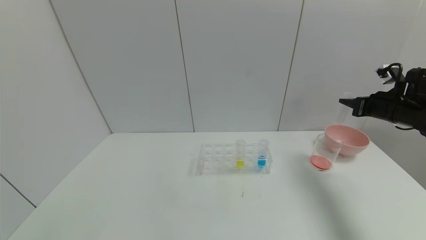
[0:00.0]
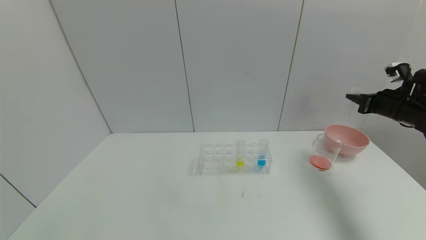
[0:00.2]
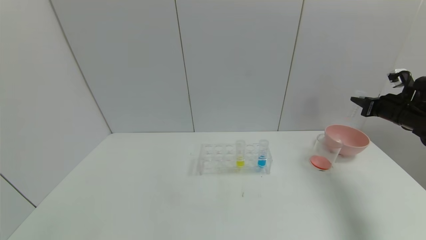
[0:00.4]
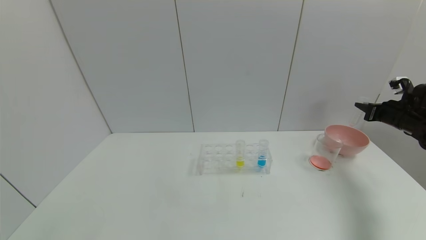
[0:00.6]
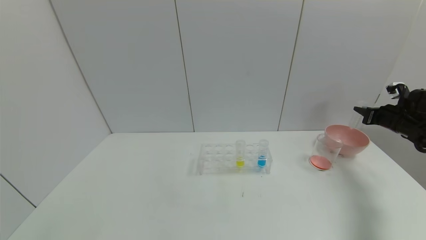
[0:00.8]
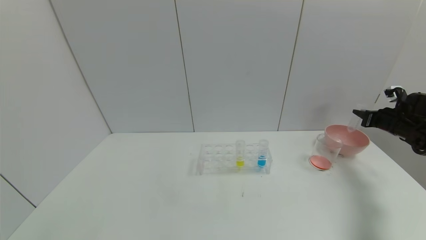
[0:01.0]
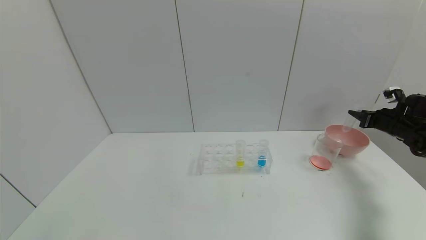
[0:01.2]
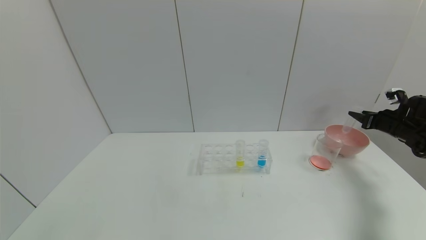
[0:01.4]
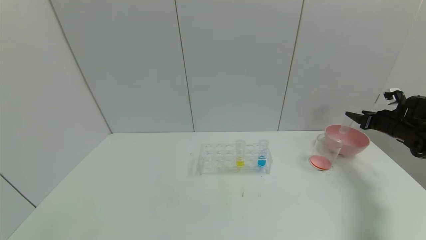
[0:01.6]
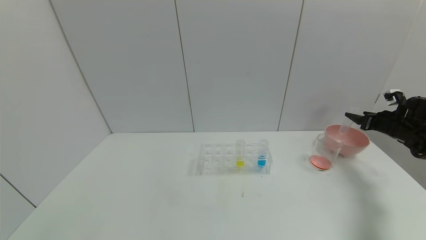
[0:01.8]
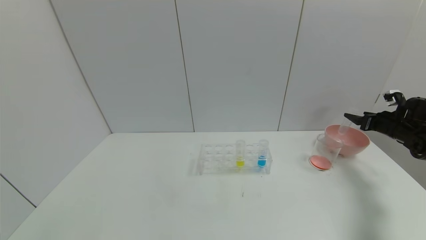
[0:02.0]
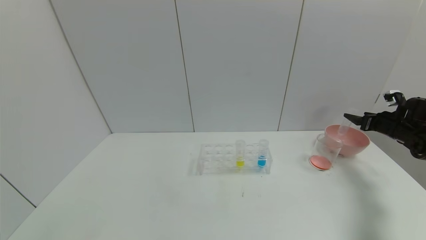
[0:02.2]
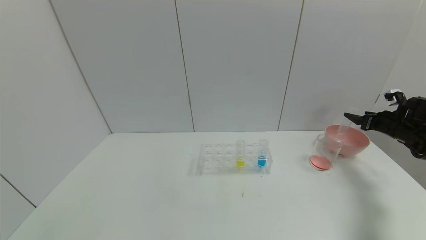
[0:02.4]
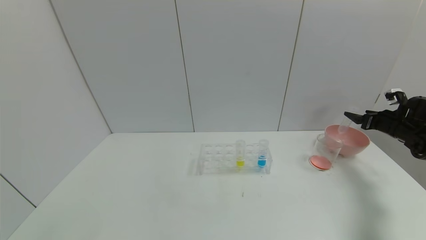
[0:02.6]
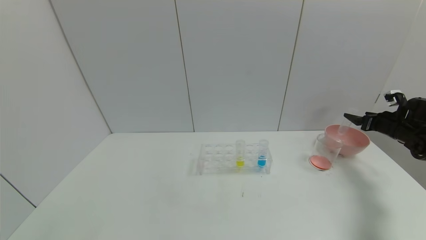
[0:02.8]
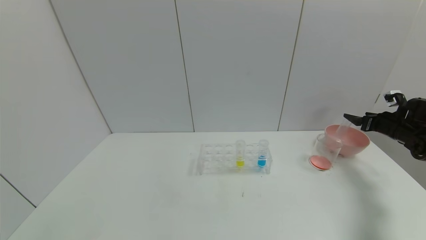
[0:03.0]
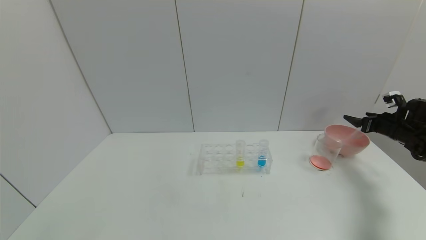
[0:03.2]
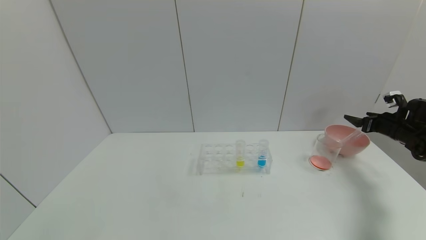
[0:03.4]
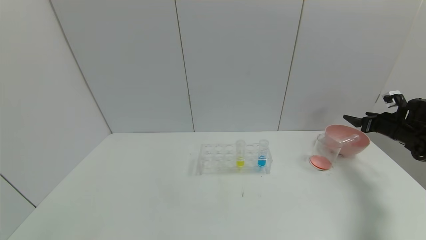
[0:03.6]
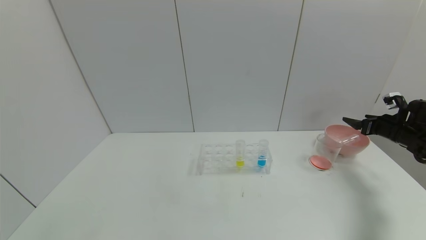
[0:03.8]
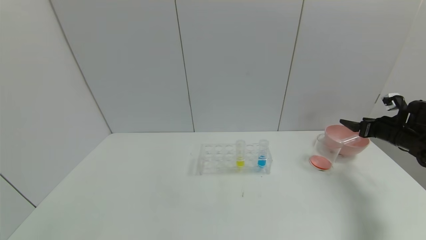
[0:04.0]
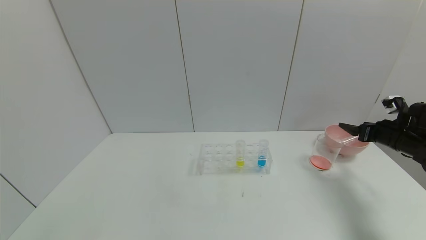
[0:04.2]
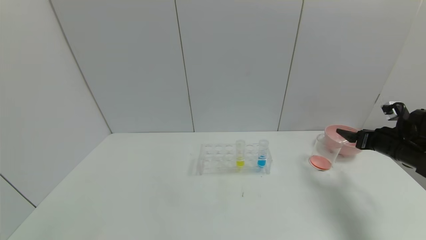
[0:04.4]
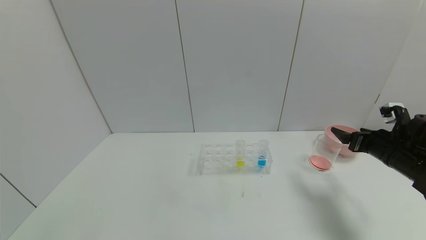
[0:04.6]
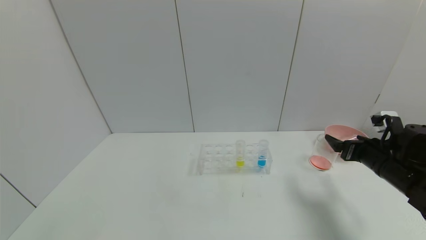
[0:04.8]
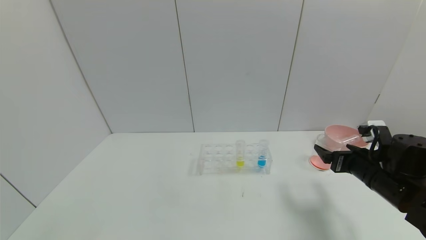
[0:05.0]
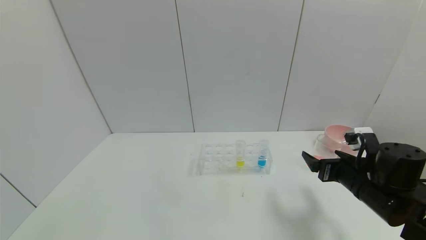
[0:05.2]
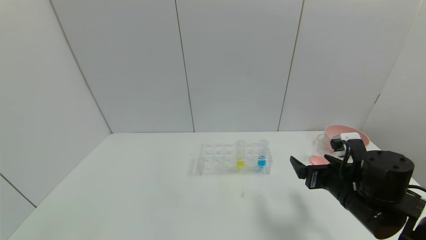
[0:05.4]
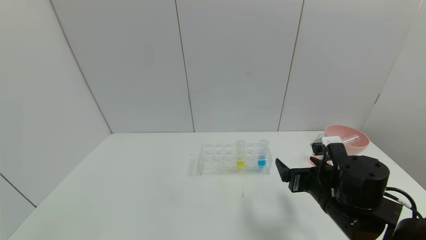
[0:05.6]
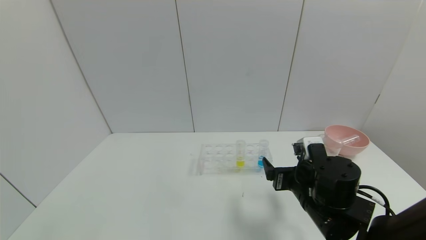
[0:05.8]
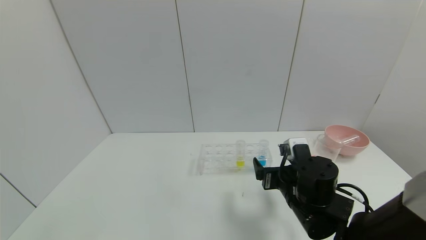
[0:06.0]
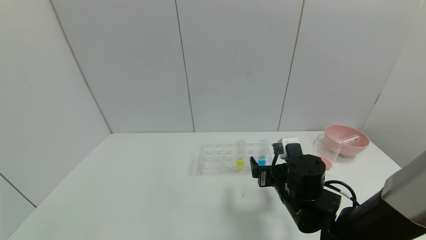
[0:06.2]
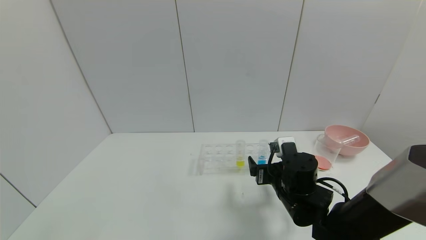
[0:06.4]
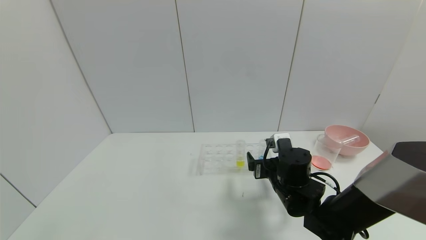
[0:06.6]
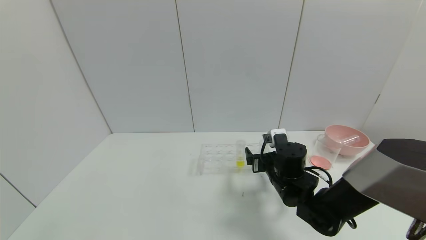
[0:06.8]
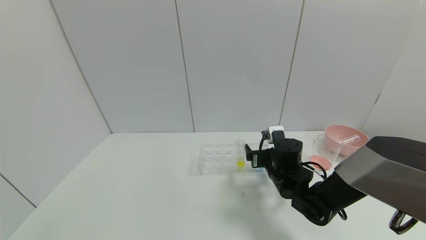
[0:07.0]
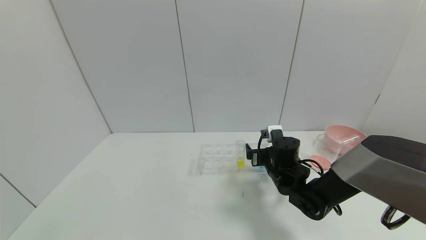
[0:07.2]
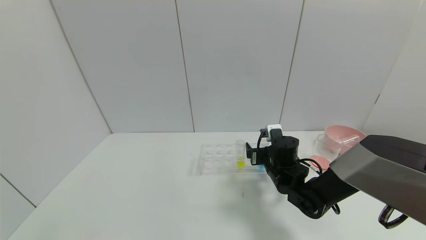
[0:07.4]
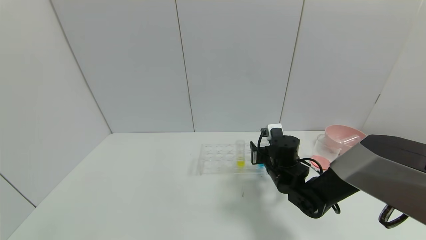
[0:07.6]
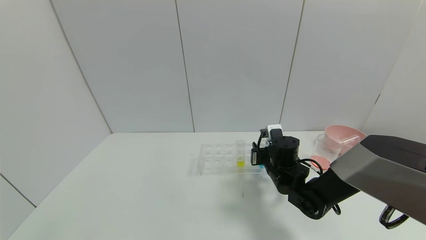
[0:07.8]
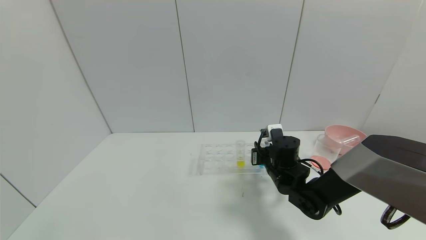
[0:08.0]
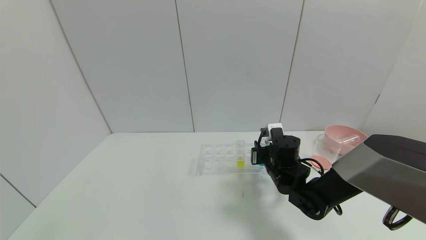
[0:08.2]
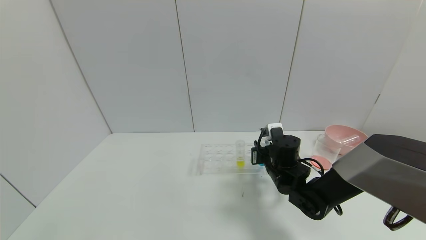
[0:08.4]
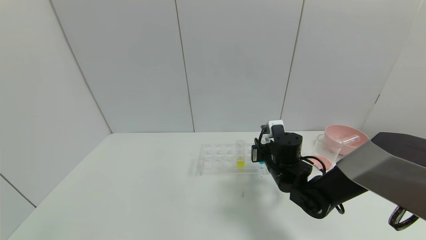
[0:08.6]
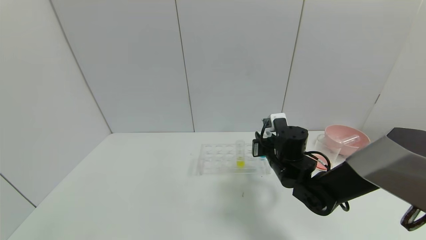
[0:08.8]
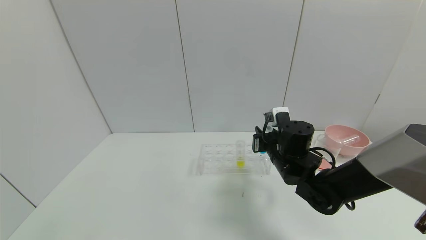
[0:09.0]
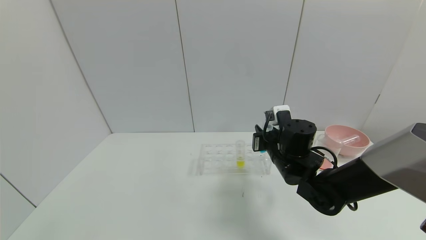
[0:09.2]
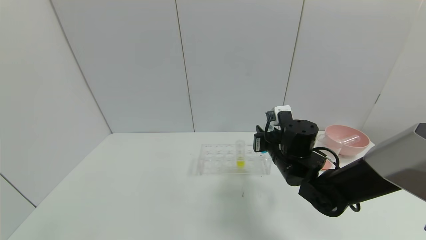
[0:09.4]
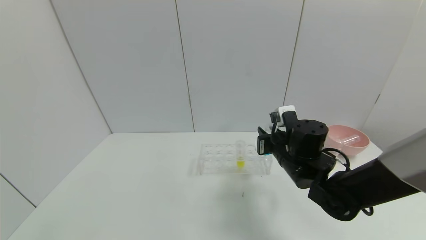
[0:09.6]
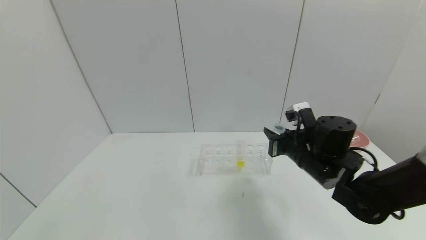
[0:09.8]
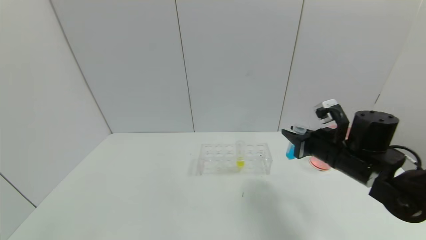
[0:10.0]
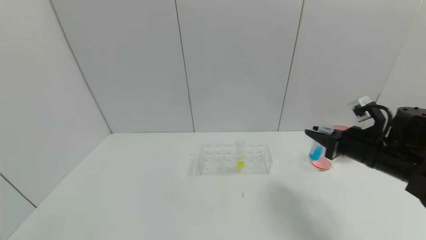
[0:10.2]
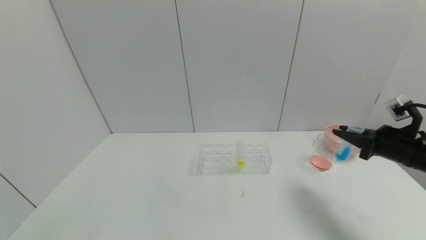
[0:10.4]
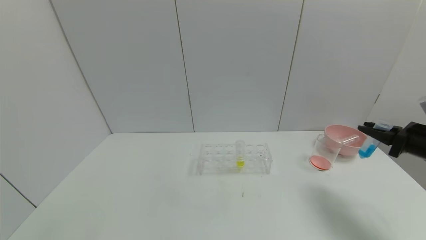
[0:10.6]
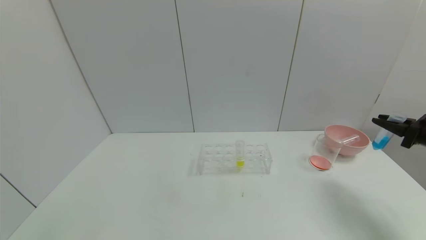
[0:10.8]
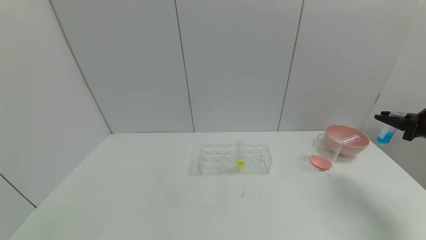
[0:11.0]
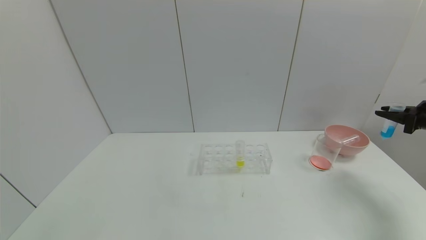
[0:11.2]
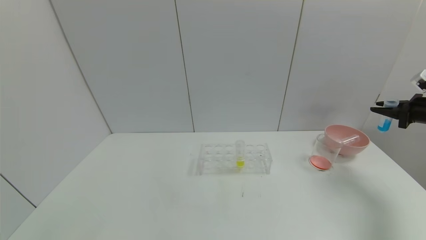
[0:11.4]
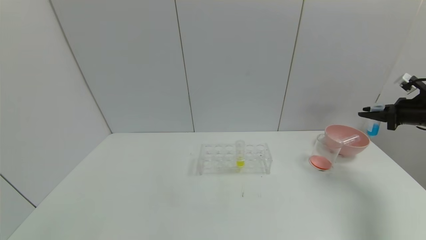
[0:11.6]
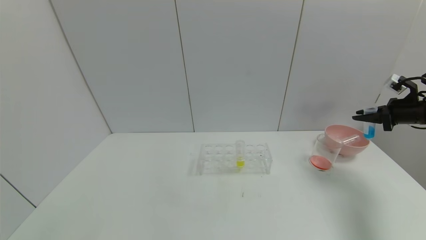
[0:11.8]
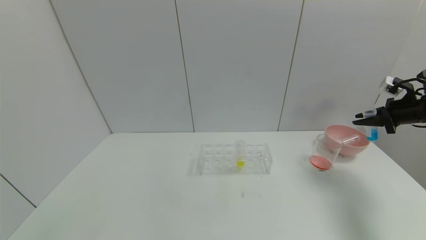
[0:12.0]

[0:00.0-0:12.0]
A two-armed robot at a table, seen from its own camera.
Task of the whole recording: pick up the test tube with red pigment and the test tube with blue pigment by grippers and pour them into the container.
Step, 0:00.0 to 0:03.8: Place the test tube into the bowl with the right gripper.
Step, 0:04.0 to 0:08.2: Grasp the blue reagent with the right gripper.
0:00.0 to 0:01.6: The right gripper goes some 10 cm to the right and downward, and opens.
0:01.6 to 0:03.0: Both grippers stay put.
0:03.0 to 0:04.4: The right gripper shifts some 15 cm to the left and backward.
0:04.4 to 0:06.0: The right gripper is displaced to the left by about 25 cm.
0:06.0 to 0:07.6: The right gripper goes approximately 10 cm forward, and closes its fingers.
0:07.6 to 0:09.0: The right gripper moves upward, roughly 5 cm, and closes its fingers.
0:09.0 to 0:10.4: The right gripper moves to the right, approximately 25 cm.
0:10.4 to 0:12.0: The right gripper is displaced to the right and forward by roughly 15 cm.

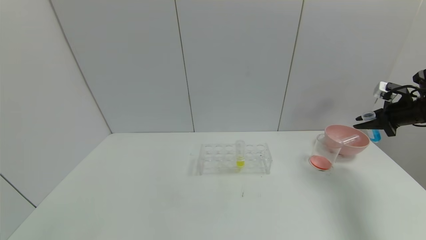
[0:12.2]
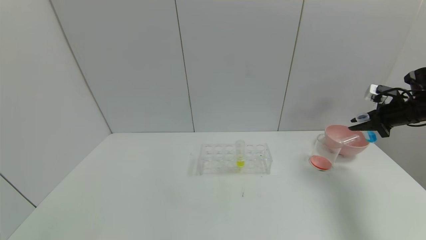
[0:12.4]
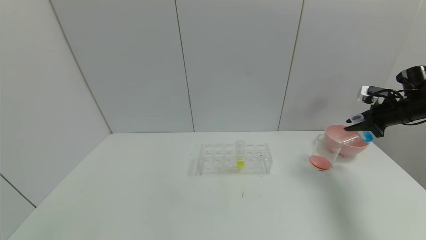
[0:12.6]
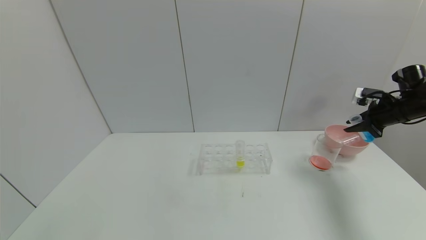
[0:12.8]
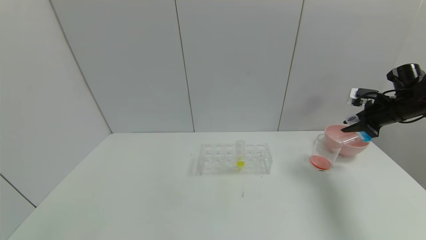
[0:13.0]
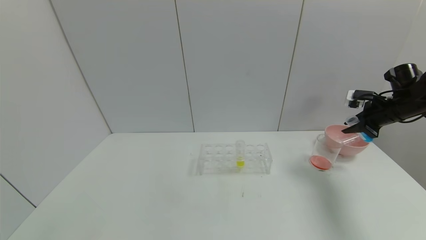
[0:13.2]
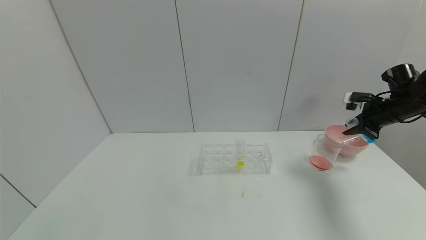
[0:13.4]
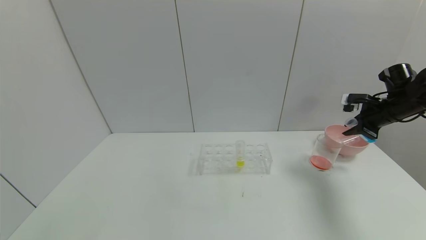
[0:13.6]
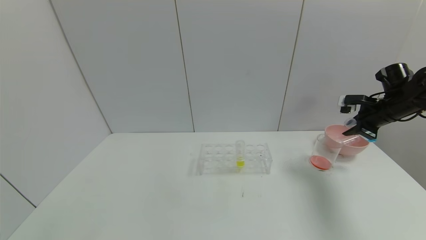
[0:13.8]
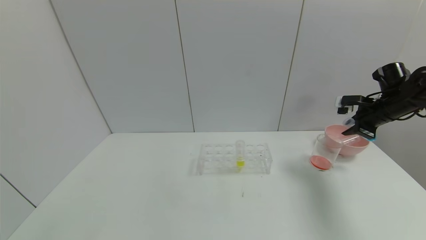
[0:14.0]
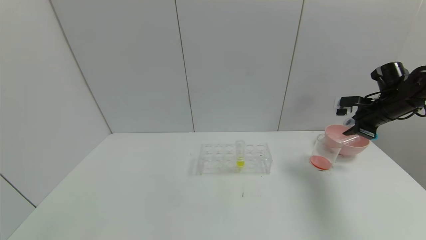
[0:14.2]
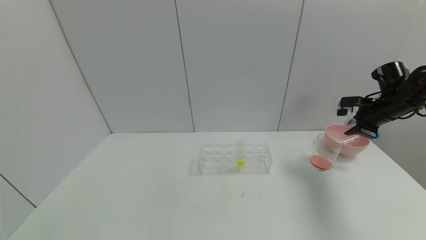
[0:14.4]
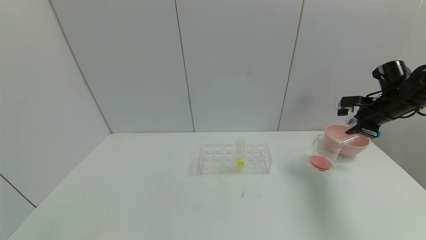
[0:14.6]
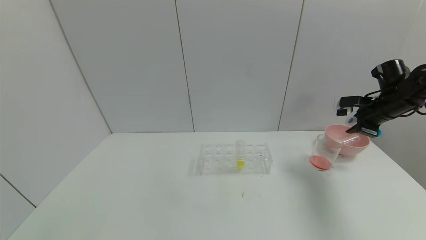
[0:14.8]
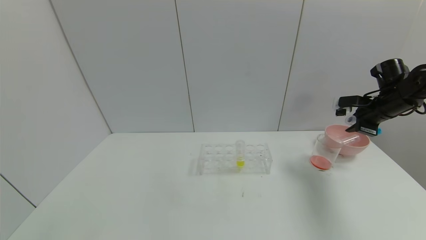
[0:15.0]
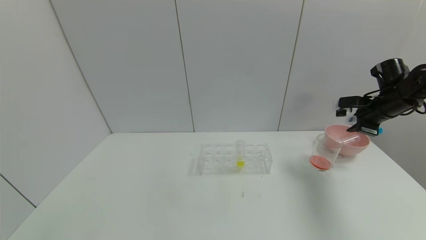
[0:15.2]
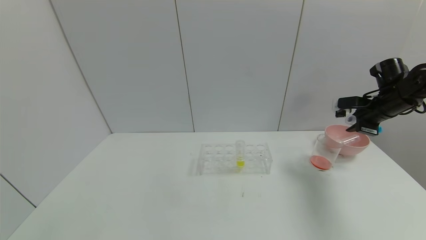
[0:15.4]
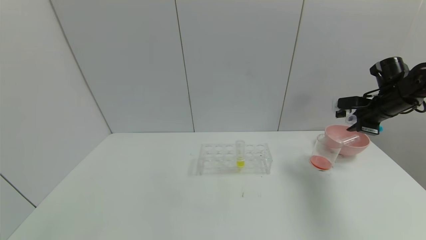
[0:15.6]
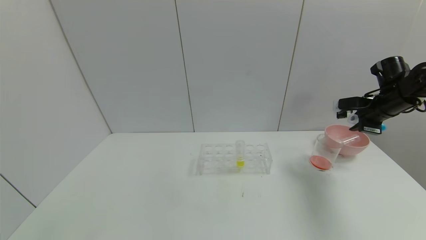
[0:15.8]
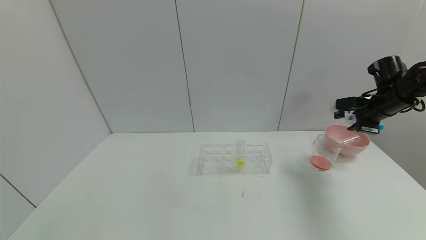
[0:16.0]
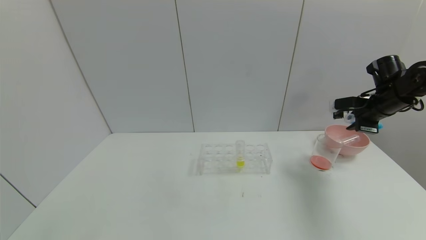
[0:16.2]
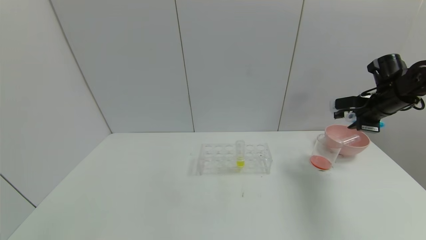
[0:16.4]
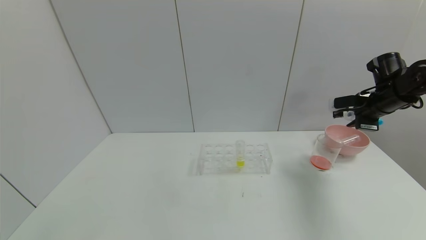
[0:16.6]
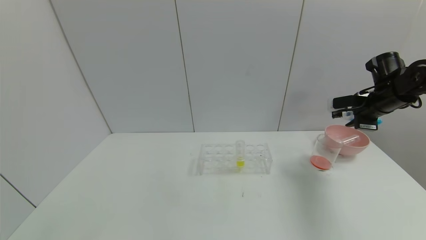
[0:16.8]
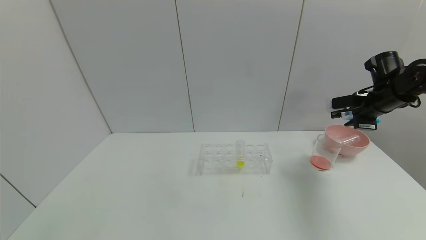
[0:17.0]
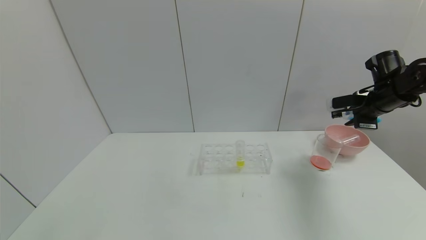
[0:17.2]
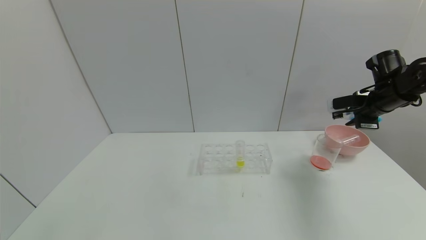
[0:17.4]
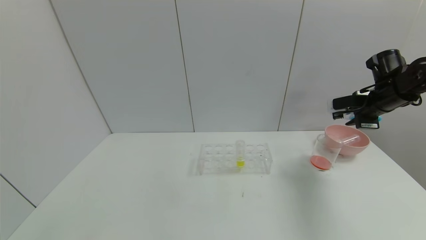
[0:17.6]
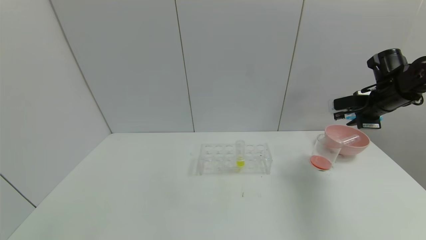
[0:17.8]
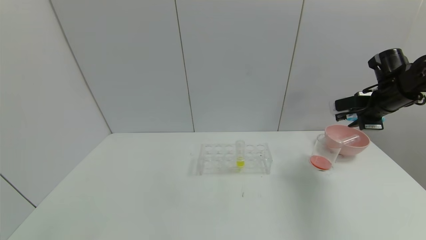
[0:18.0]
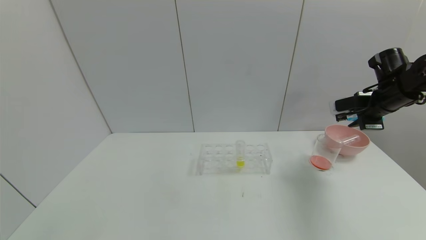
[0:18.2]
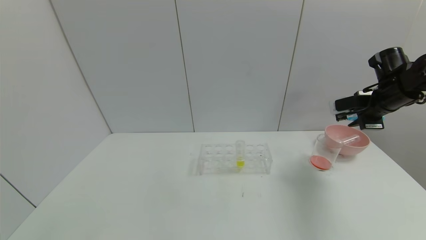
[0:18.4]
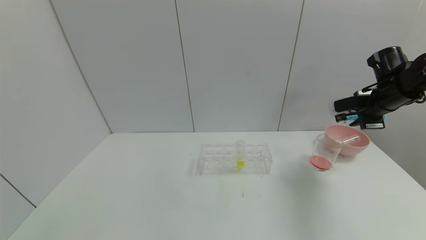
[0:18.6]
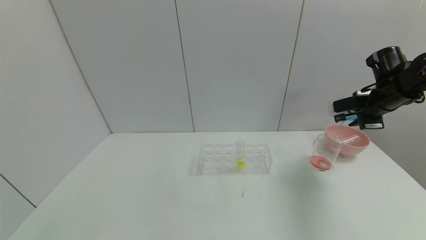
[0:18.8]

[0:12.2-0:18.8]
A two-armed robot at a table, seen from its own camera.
Task of the whole recording: pick up the test tube with red pigment and the test tube with blue pigment by grippers and pour them into the container.
0:12.2 to 0:13.8: The right gripper shifts roughly 5 cm to the left.
0:13.8 to 0:15.4: The grippers make only small movements.
0:15.4 to 0:18.8: The grippers move only a little.
